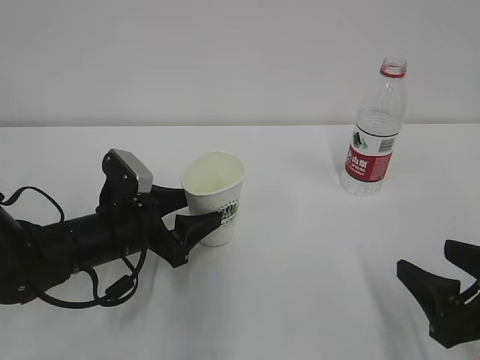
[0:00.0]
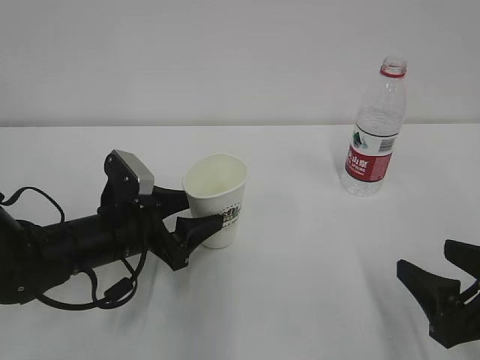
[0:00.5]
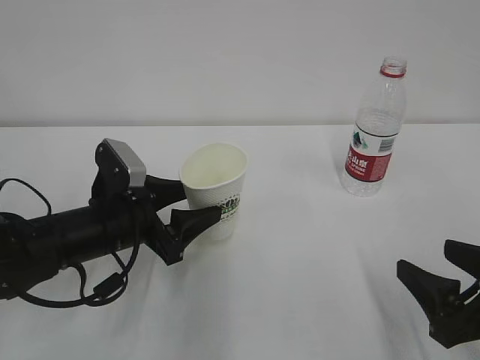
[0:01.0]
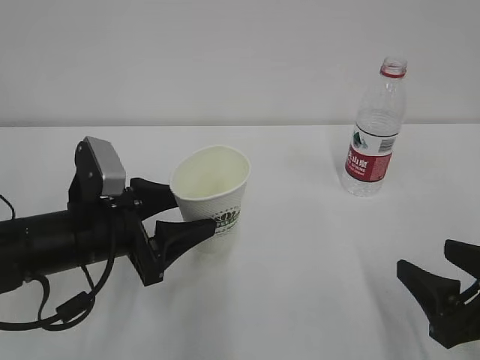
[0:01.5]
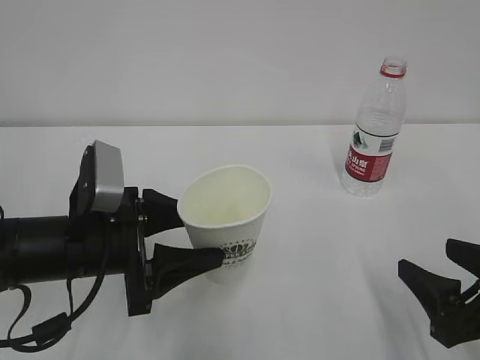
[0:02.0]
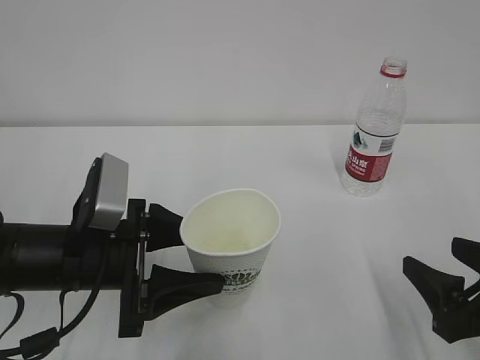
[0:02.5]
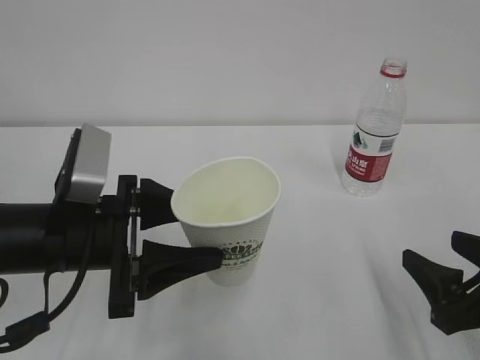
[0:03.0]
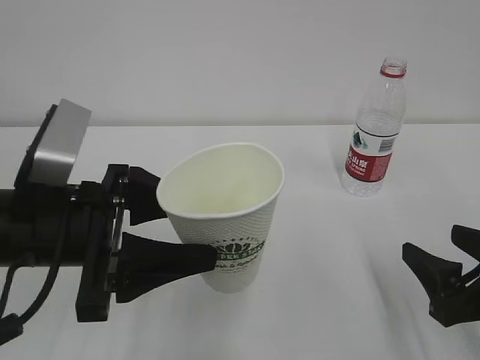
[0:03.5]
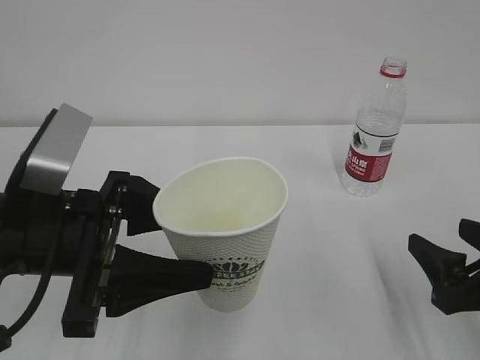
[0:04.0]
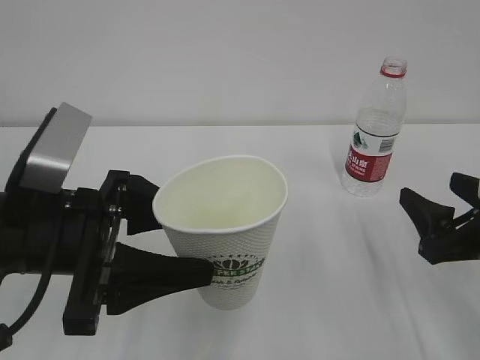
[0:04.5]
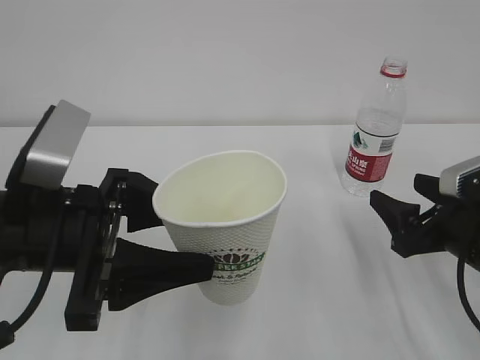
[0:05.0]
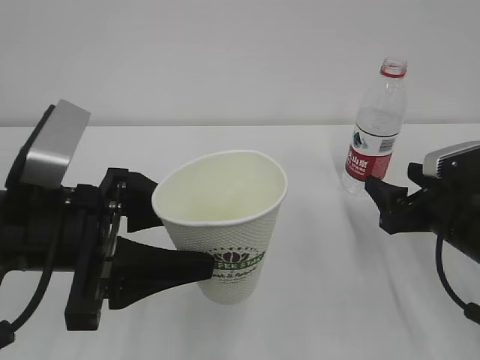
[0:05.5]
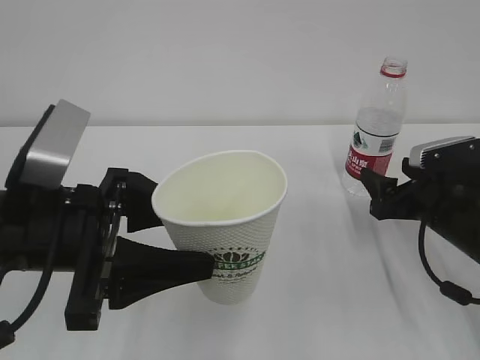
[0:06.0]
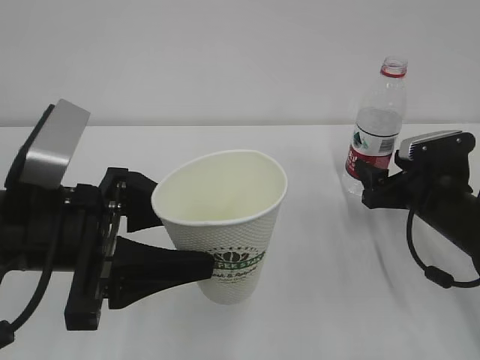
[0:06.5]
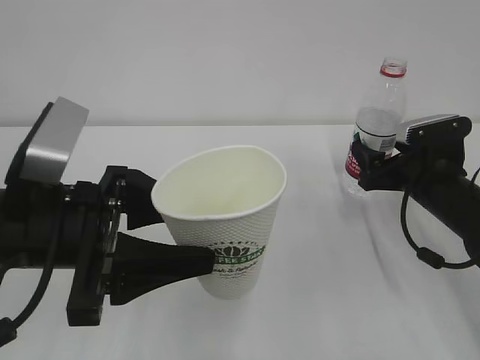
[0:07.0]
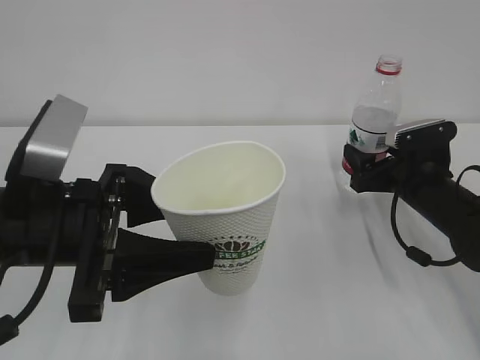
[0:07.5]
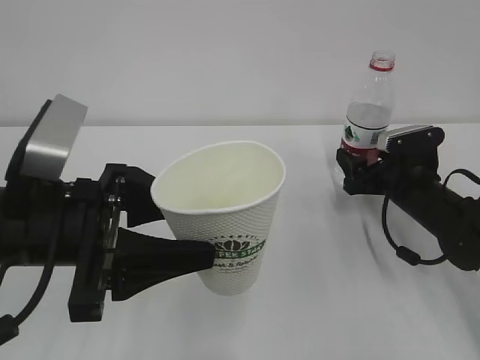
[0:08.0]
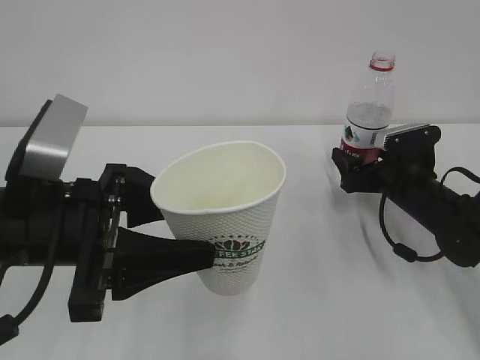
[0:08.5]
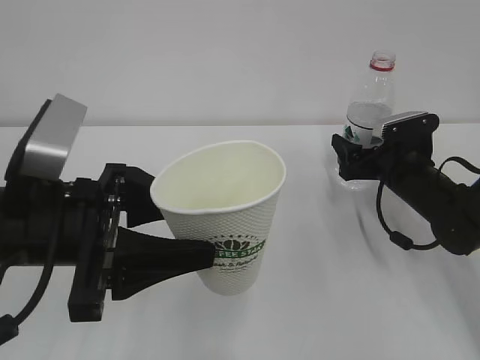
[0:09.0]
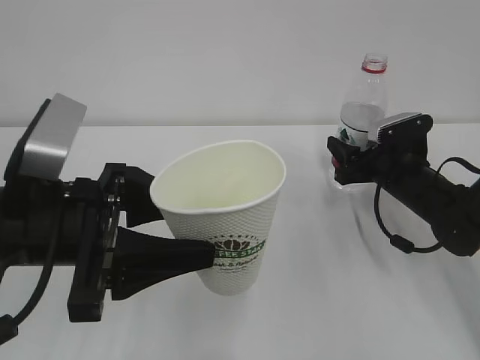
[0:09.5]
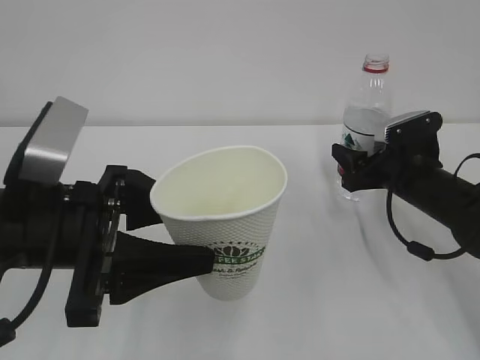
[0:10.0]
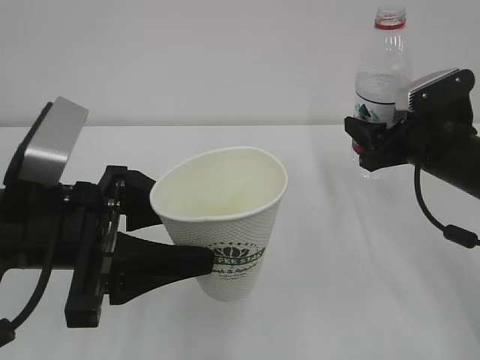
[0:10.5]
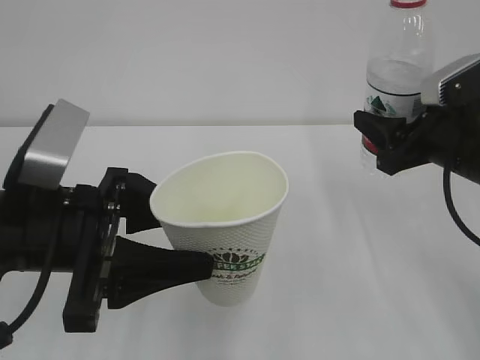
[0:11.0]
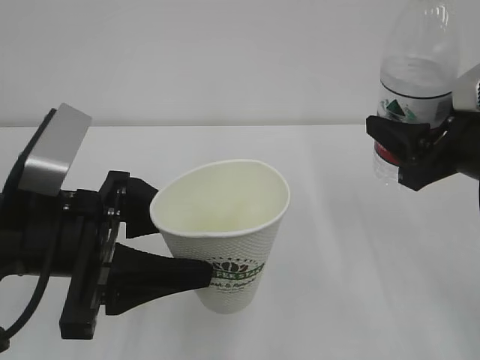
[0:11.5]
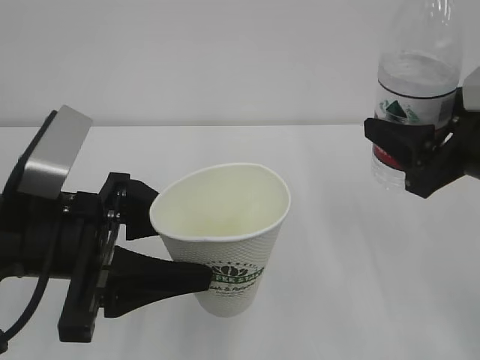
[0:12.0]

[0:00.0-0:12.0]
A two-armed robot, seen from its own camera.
0.0 to 2.0 s: The left gripper is displaced backward and upward by approximately 10 cm.
2.0 to 4.0 s: The left gripper heads upward, covering about 5 cm.
4.0 to 6.0 s: The right gripper is displaced forward by about 15 cm.
6.0 to 8.0 s: The right gripper moves forward, about 5 cm.
8.0 to 10.0 s: The right gripper closes up.
10.0 to 12.0 s: The right gripper shifts some 20 cm upward and backward.

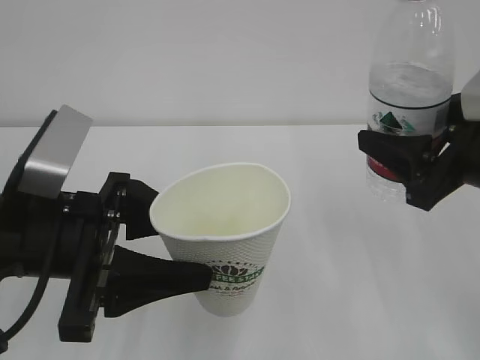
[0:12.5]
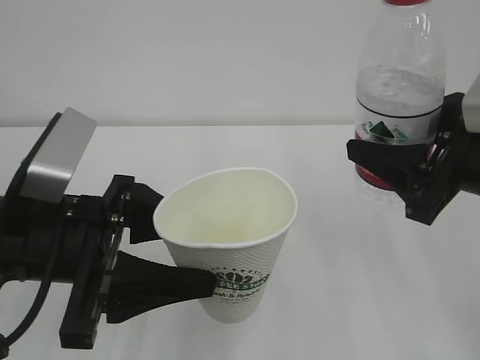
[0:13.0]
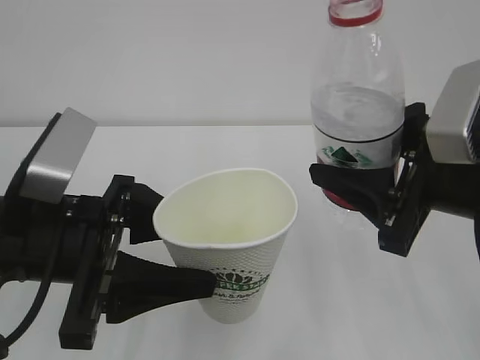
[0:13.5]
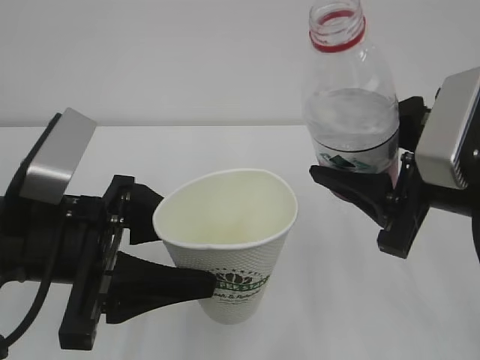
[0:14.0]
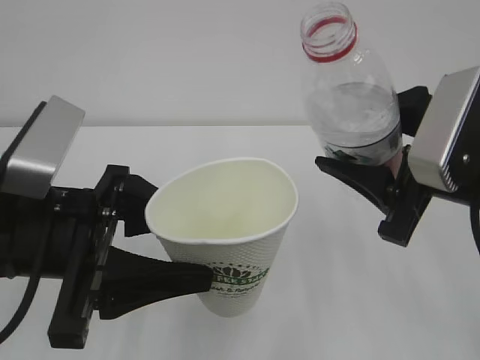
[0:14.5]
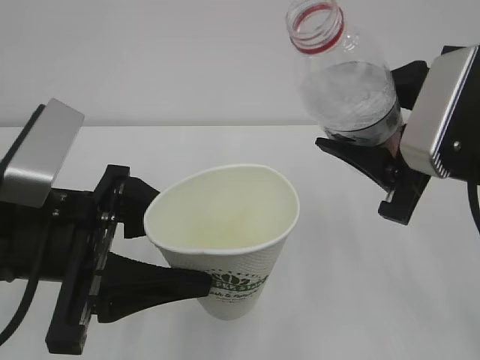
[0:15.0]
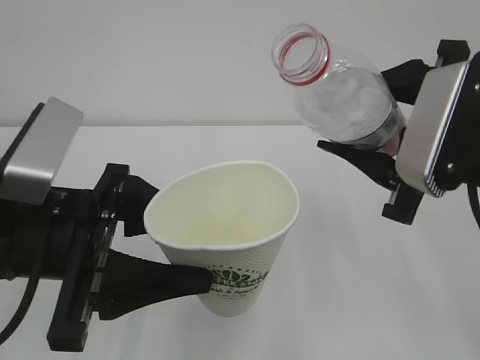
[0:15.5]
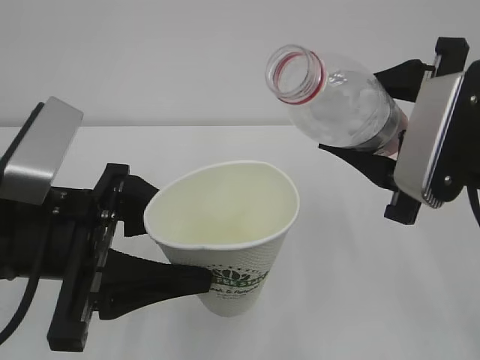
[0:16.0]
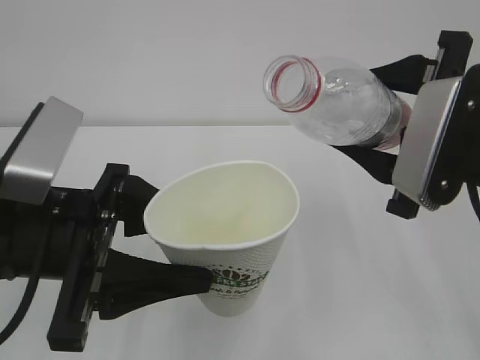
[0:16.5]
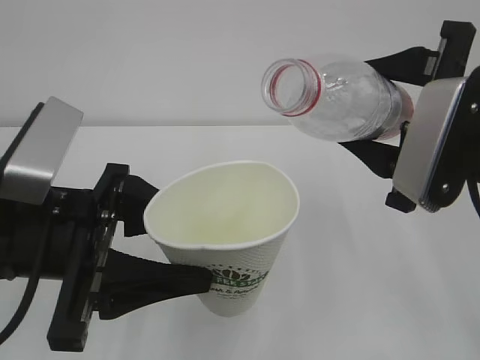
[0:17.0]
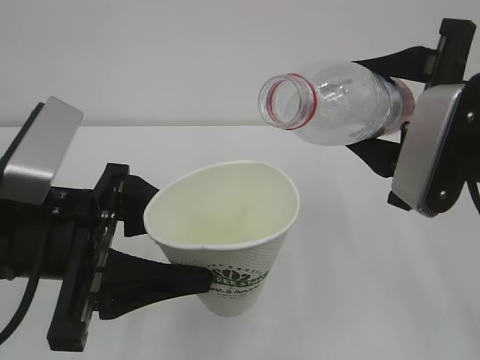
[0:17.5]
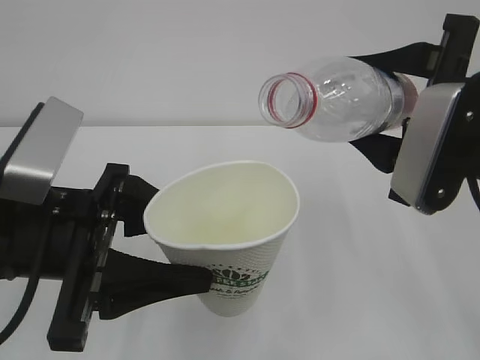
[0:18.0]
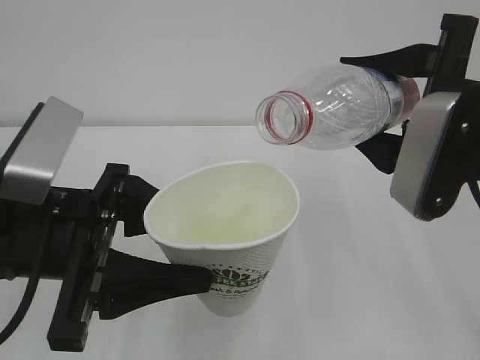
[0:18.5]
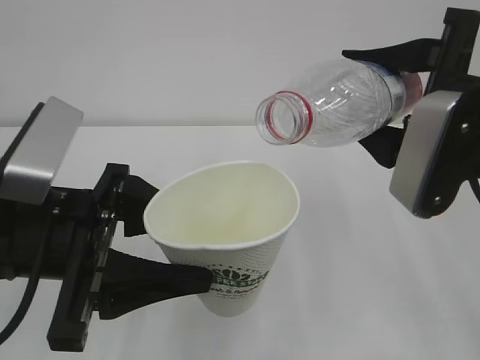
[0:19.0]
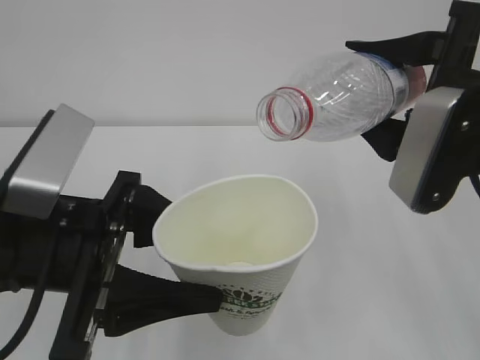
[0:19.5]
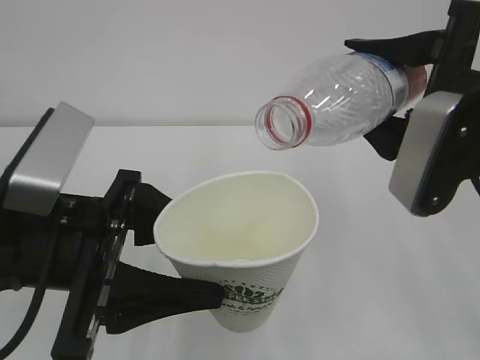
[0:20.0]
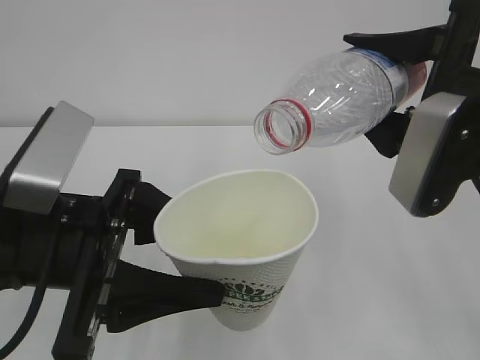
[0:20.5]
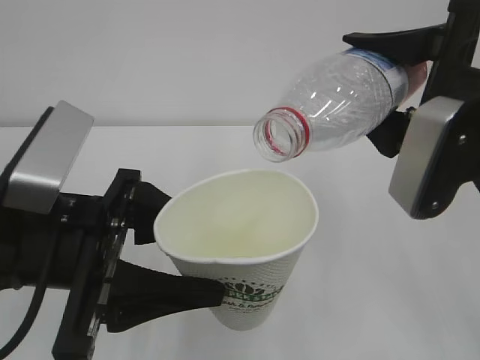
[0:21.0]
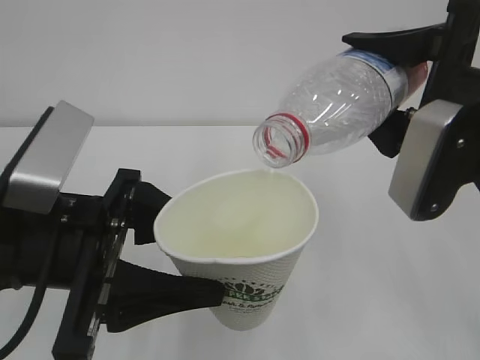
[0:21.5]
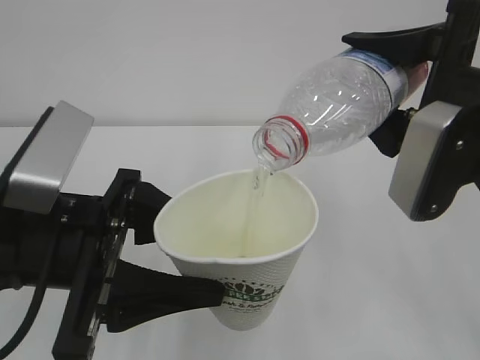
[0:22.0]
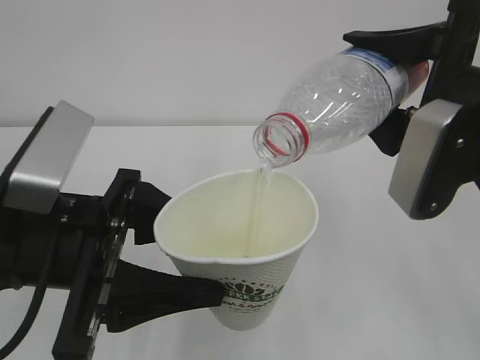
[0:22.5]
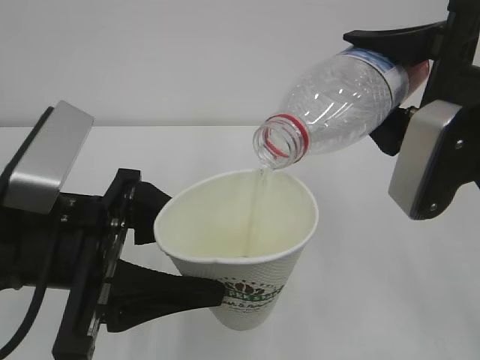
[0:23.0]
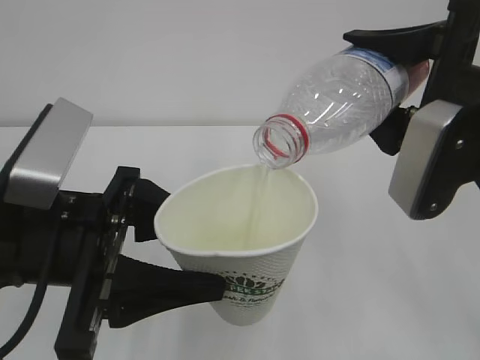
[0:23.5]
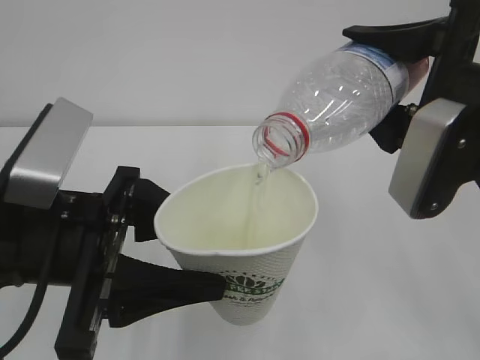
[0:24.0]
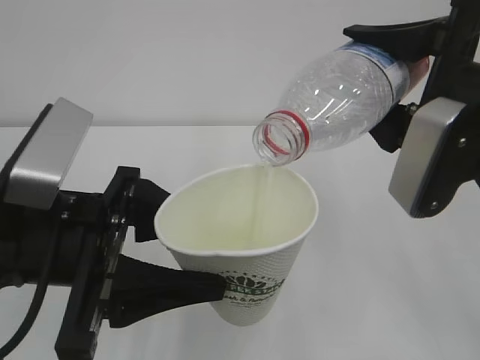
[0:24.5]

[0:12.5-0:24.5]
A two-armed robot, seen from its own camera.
16.5 to 18.5 s: There are only small adjustments of the grippers.
18.5 to 20.5 s: The grippers stay close to where they were, moving slightly.
20.5 to 22.5 s: The two grippers keep their place.
22.5 to 24.5 s: Both grippers stay about where they are.

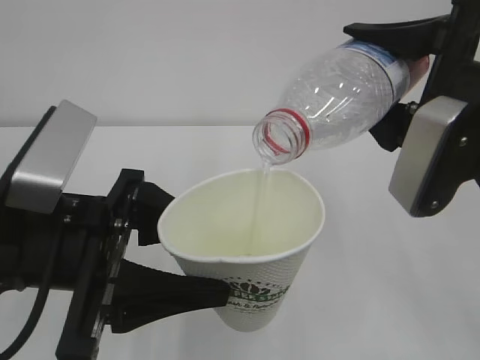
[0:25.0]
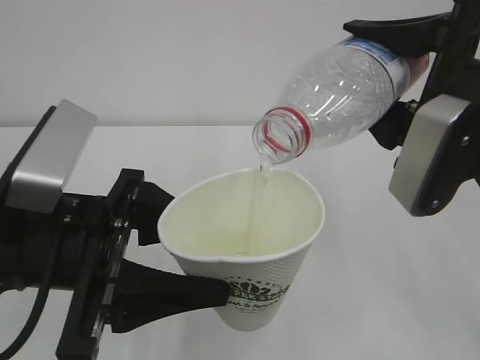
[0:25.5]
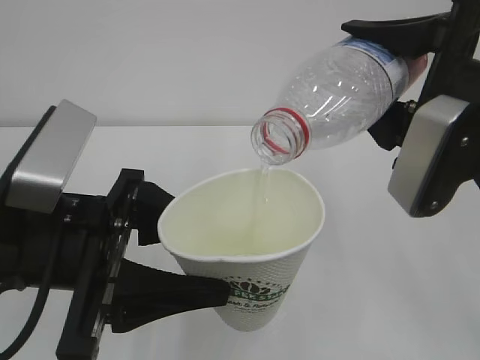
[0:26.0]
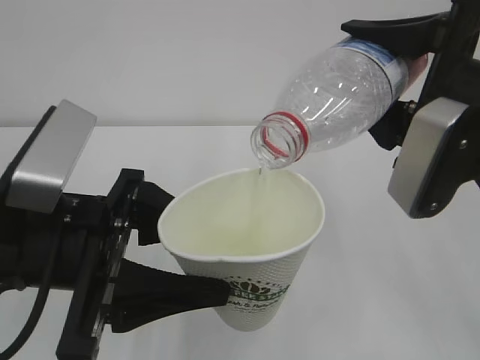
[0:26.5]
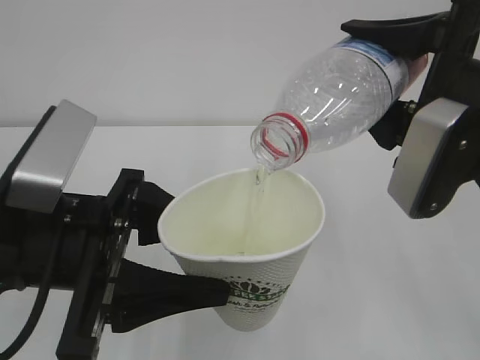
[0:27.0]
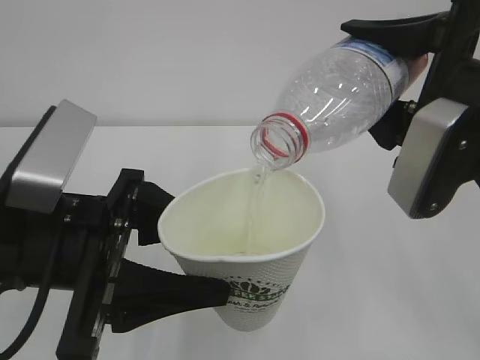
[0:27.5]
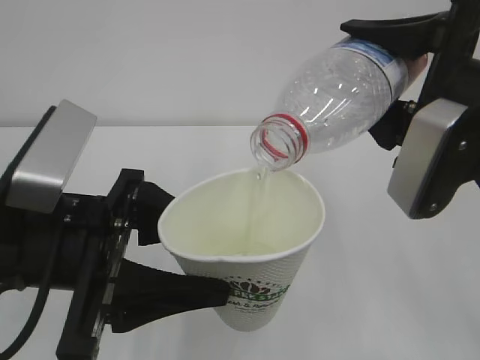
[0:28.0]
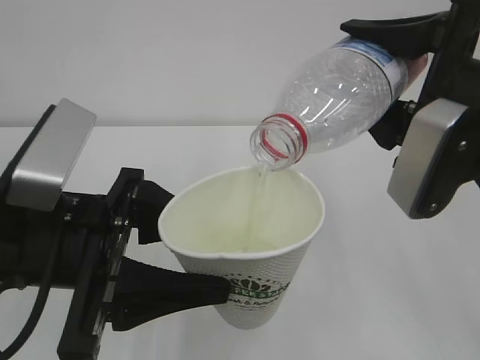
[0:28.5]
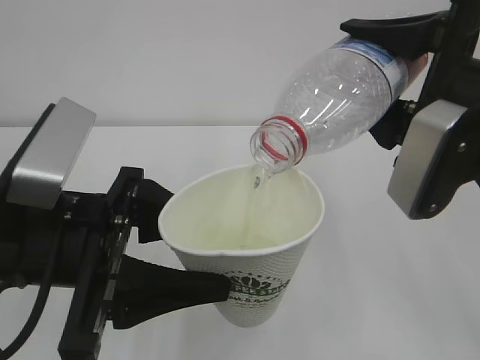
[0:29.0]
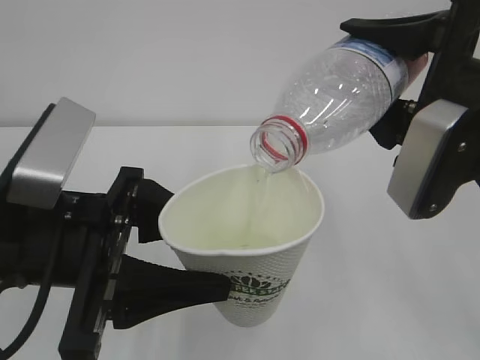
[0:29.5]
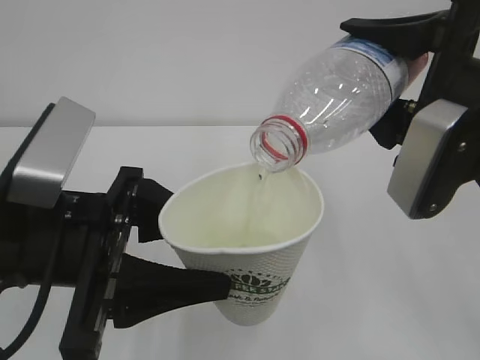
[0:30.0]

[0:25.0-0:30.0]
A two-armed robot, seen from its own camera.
25.0 to 30.0 s: The two grippers keep their place.
